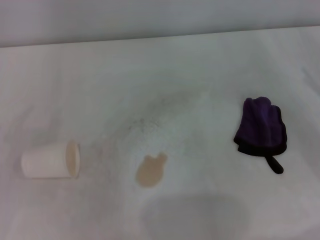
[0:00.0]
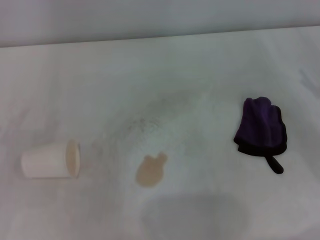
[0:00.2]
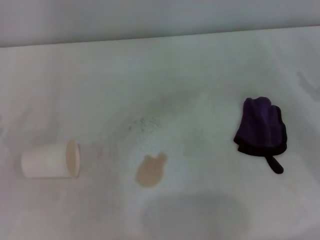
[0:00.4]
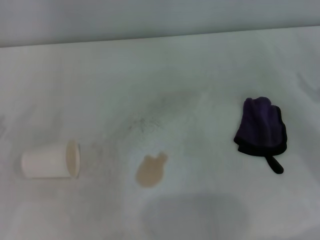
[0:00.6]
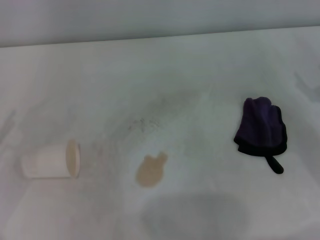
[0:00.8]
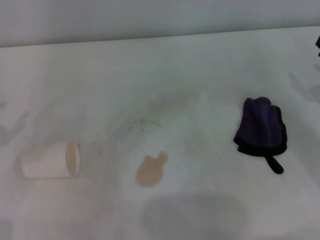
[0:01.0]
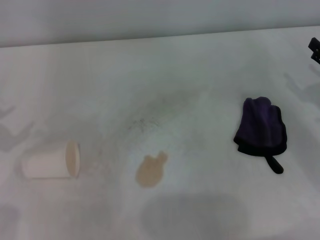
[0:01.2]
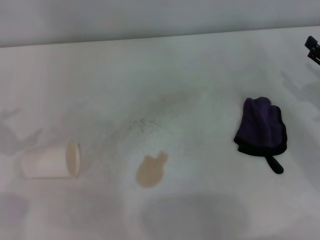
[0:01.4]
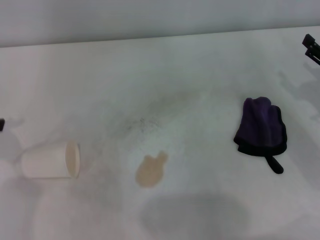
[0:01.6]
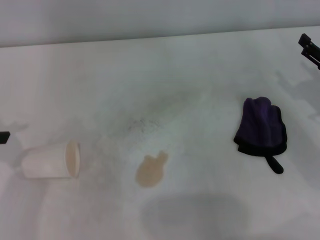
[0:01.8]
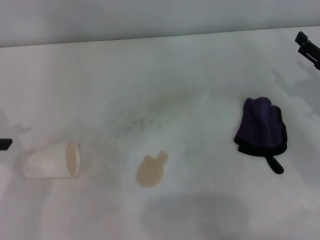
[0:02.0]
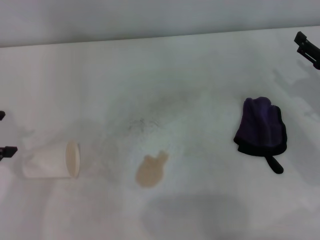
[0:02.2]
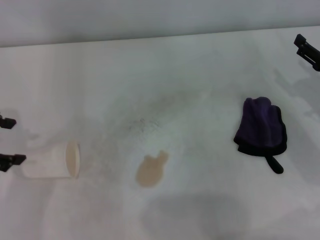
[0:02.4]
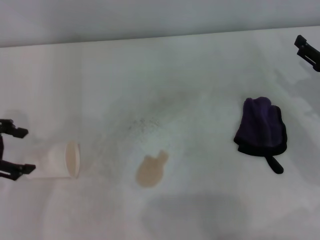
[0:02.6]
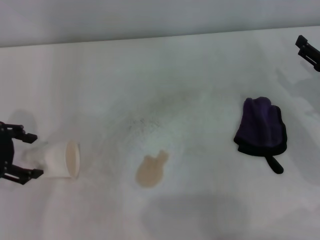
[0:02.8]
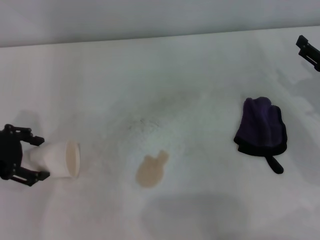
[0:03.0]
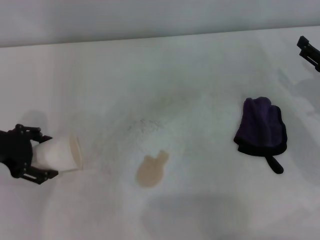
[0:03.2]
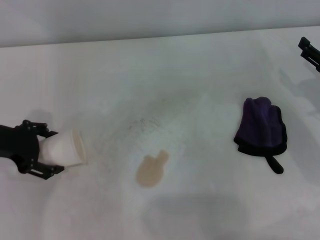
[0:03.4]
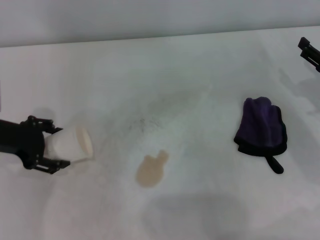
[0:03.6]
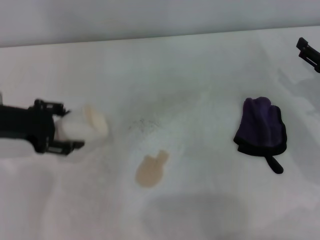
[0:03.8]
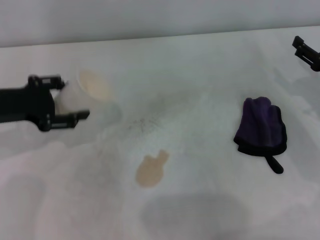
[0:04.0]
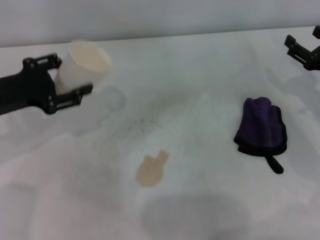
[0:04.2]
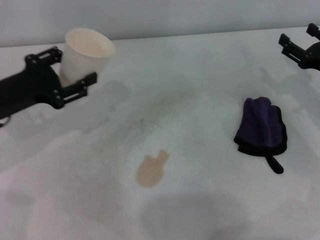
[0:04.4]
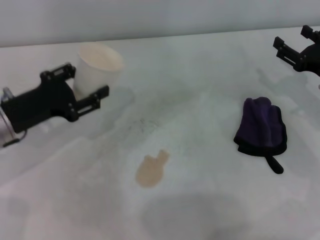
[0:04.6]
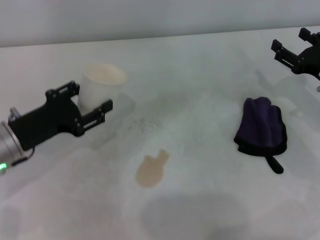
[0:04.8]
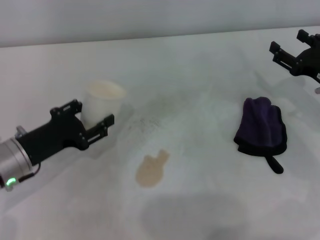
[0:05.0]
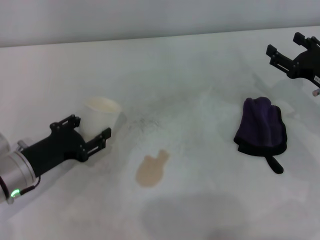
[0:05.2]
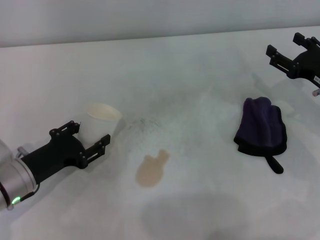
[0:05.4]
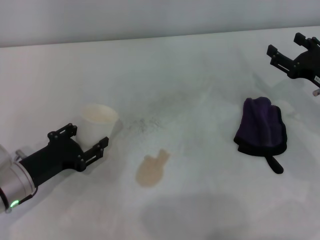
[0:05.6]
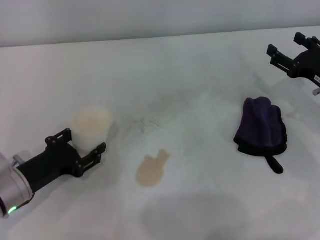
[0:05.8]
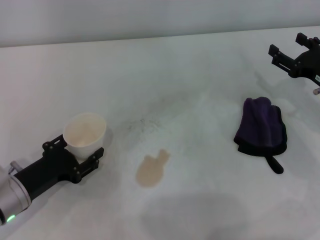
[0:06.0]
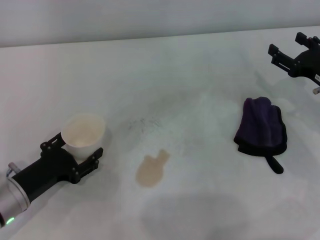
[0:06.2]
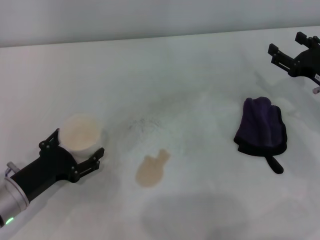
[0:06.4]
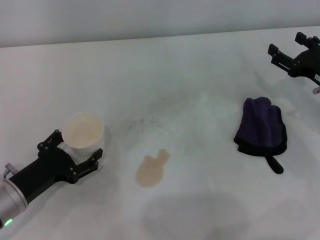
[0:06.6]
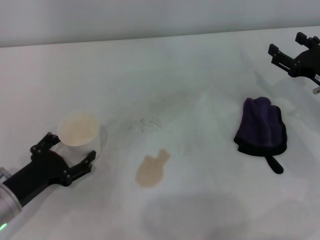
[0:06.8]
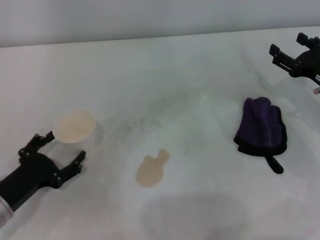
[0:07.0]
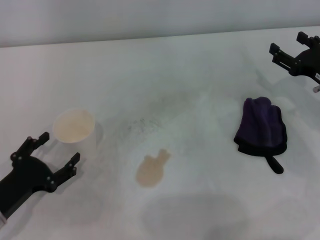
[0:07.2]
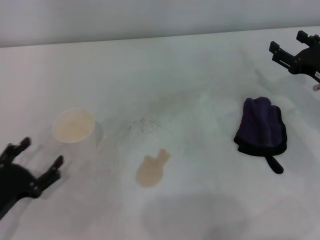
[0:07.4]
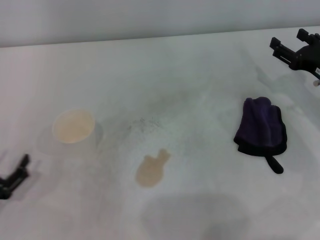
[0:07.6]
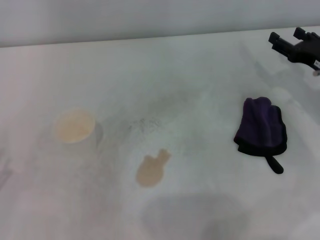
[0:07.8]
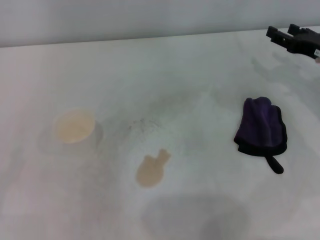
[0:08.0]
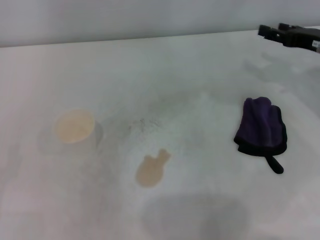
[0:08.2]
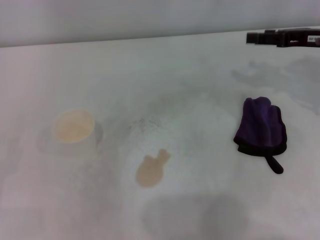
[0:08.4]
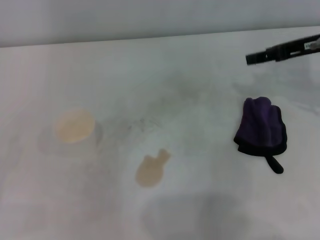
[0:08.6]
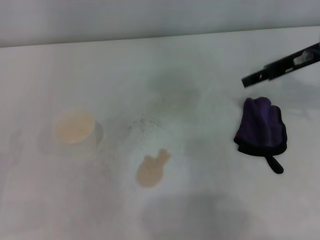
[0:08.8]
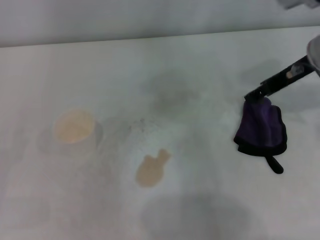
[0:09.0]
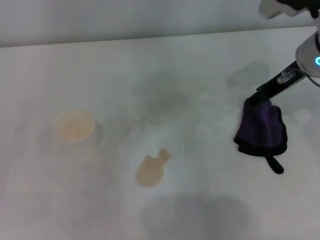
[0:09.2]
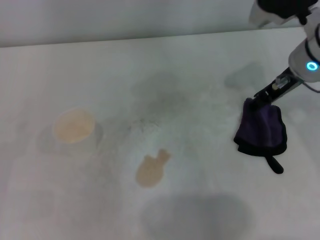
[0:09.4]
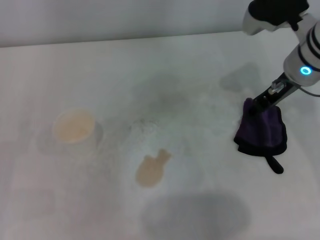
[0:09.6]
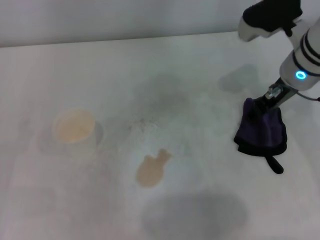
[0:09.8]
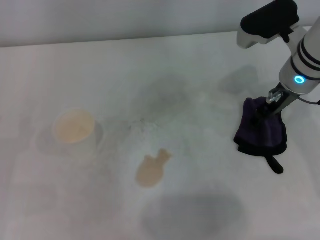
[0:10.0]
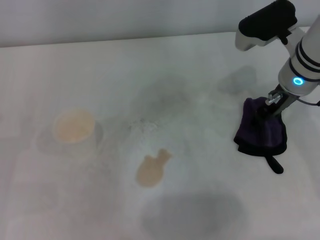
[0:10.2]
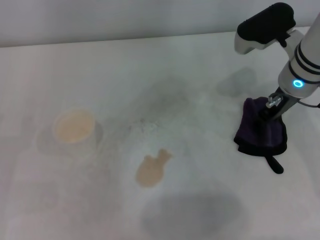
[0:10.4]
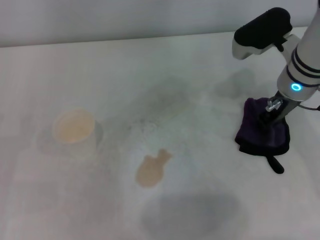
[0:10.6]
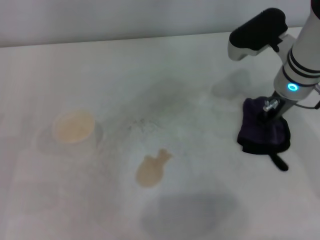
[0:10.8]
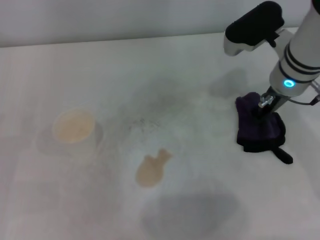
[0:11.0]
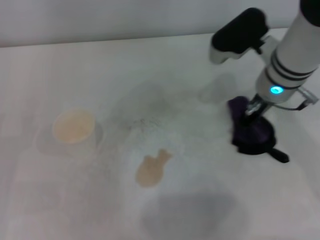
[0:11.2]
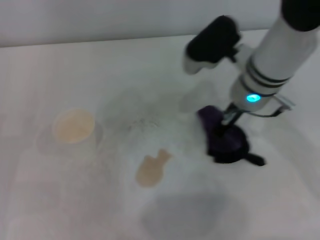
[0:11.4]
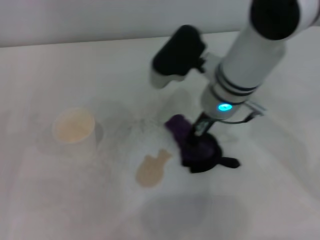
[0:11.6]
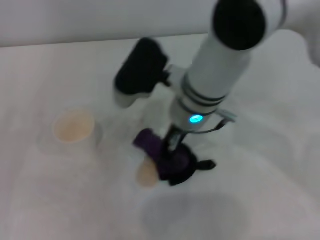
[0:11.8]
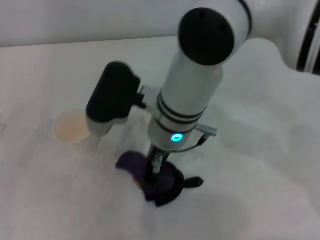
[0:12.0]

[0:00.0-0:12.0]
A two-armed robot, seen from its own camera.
Step, 0:00.0 to 0:03.2: Grasp the paper cup with the left gripper.
Step, 0:03.4 to 0:06.8: Stand the paper cup upright with the left gripper.
Step, 0:07.0 to 0:10.6: Grasp the rag with the right gripper.
0:01.6 to 0:03.0: The left gripper moves downward and to the right, approximately 10 cm.
0:03.0 to 0:04.4: The left gripper closes.
0:04.4 to 0:06.0: The left gripper is displaced downward and backward by some 15 cm.
0:06.0 to 0:07.6: The left gripper shifts roughly 10 cm backward and to the left, and opens up.
0:07.6 to 0:09.0: The right gripper travels upward and to the left by some 15 cm. The left gripper goes about 5 cm to the left.
0:09.0 to 0:10.4: The right gripper moves about 5 cm.
0:10.4 to 0:12.0: The right gripper shifts roughly 20 cm to the left, and closes up.

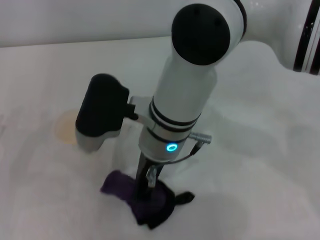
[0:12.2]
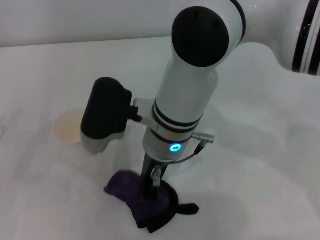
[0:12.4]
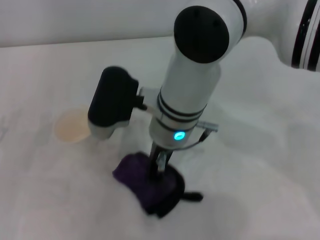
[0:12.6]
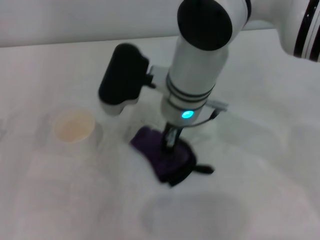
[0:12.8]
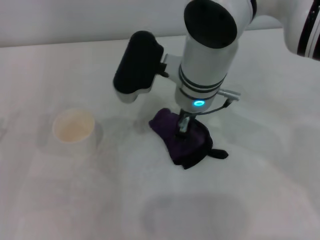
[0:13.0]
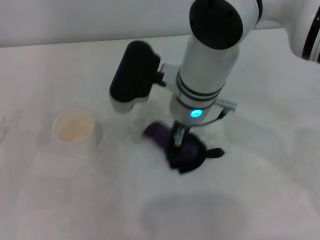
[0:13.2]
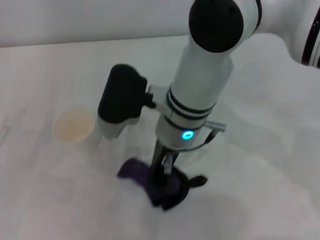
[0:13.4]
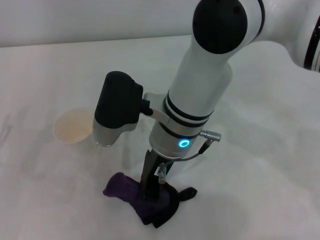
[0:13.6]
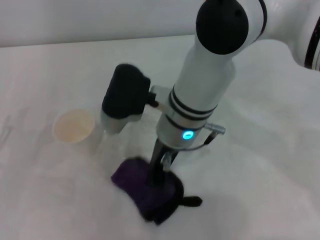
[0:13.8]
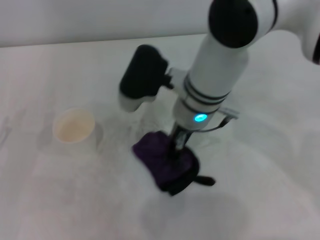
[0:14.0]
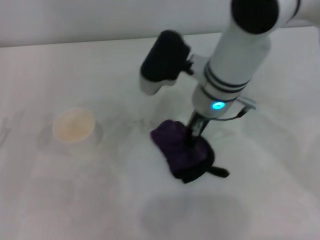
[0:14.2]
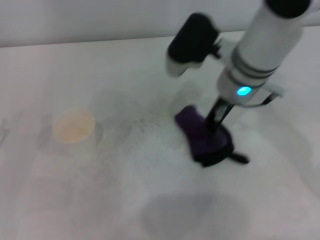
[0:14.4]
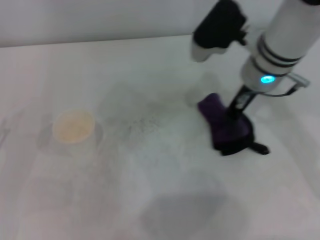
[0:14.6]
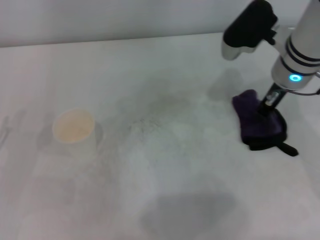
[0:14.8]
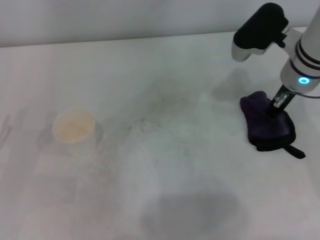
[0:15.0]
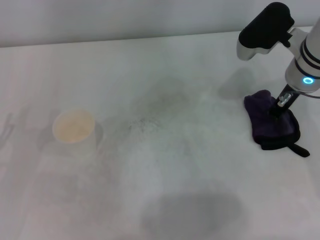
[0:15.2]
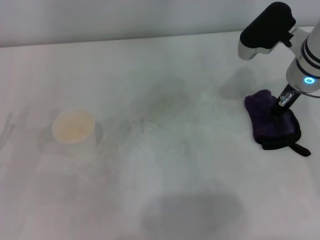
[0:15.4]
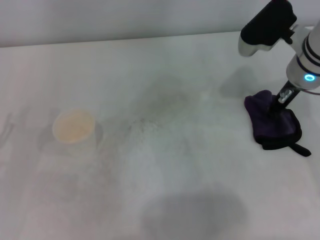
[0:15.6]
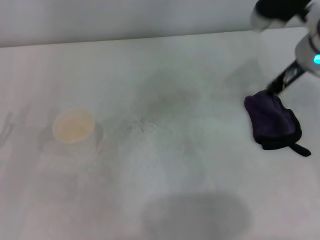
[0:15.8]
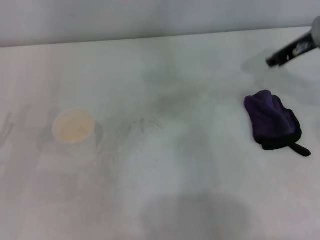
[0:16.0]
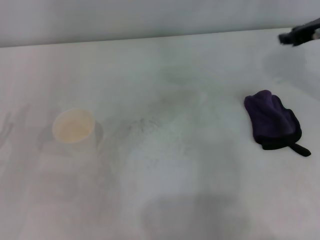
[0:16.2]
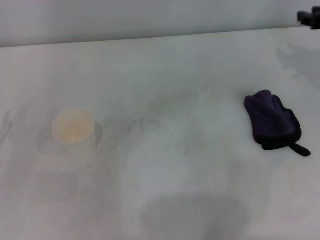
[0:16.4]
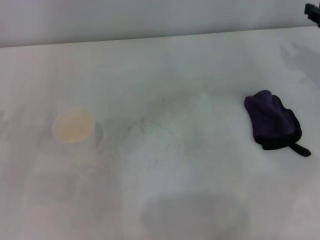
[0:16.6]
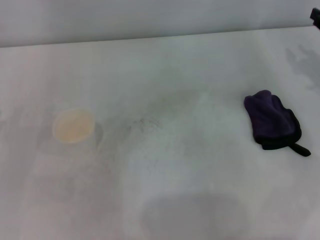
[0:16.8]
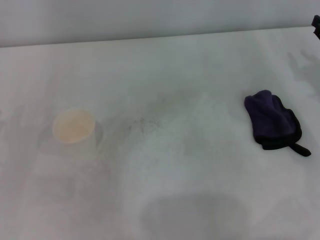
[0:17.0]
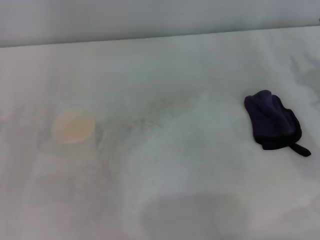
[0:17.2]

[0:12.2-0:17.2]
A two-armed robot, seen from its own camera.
Step, 0:12.2 to 0:14.6: Wipe the stains off the table with the right gripper.
Step, 0:14.8 to 0:15.4: Place the rag on the table with the right gripper.
0:13.8 to 0:15.6: The right gripper is displaced to the right by about 20 cm.
0:15.6 to 0:17.2: The right gripper goes about 15 cm to the right, backward and downward.

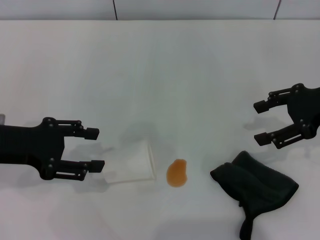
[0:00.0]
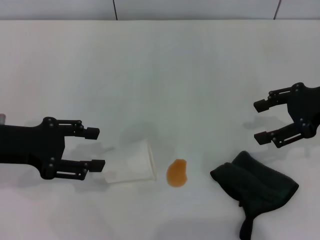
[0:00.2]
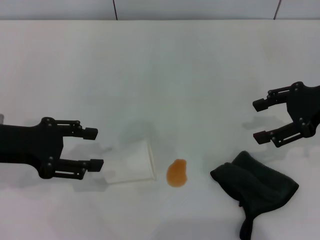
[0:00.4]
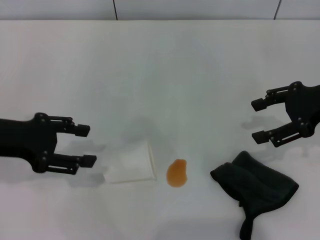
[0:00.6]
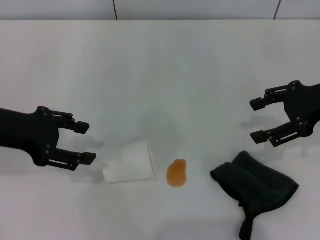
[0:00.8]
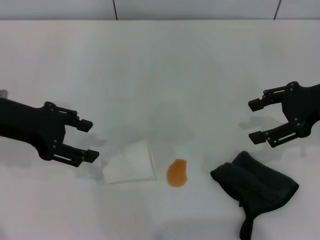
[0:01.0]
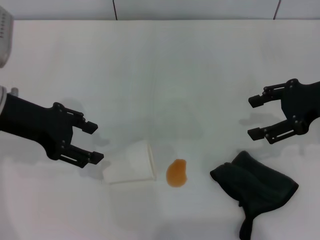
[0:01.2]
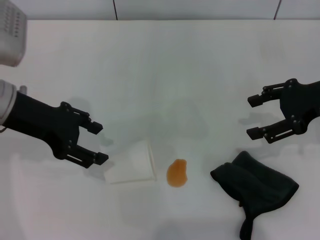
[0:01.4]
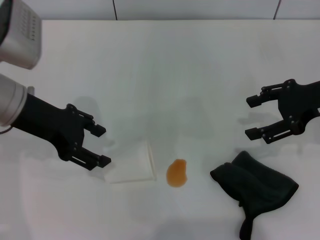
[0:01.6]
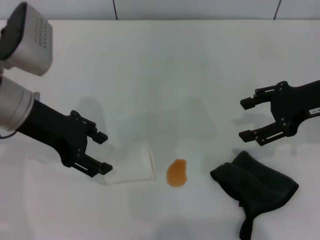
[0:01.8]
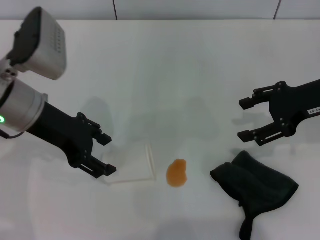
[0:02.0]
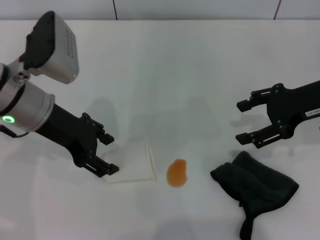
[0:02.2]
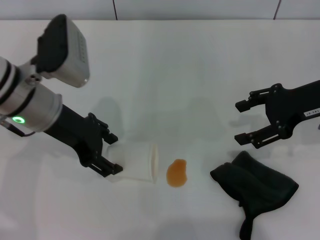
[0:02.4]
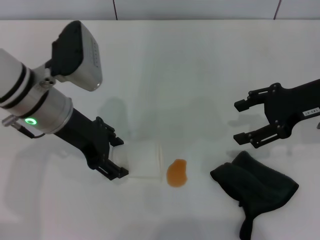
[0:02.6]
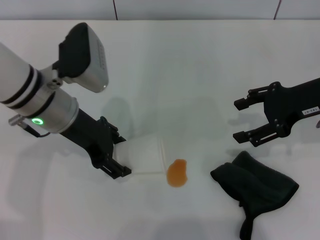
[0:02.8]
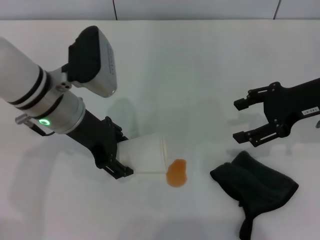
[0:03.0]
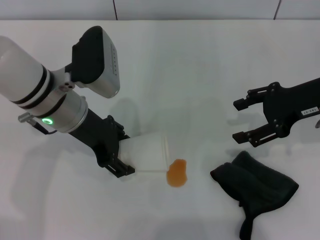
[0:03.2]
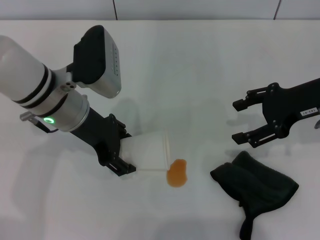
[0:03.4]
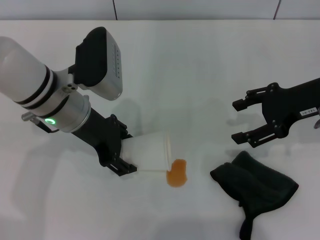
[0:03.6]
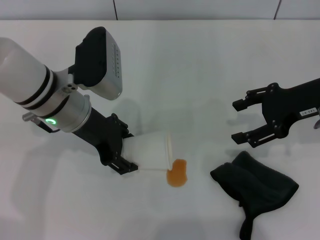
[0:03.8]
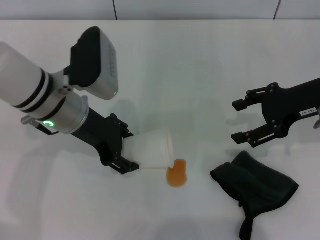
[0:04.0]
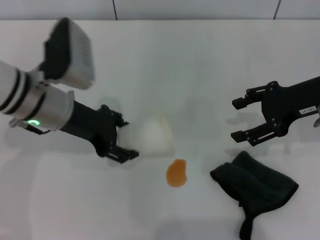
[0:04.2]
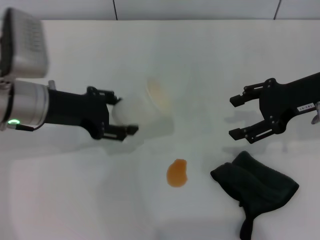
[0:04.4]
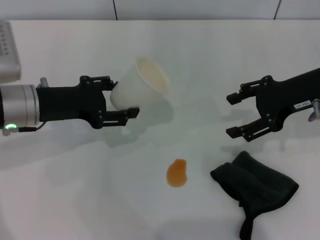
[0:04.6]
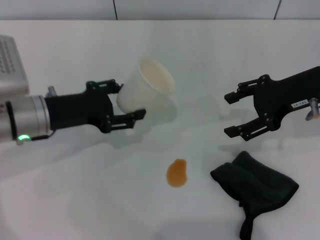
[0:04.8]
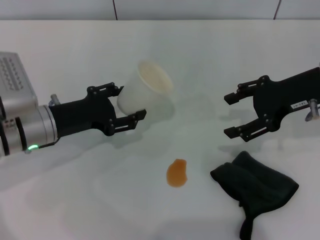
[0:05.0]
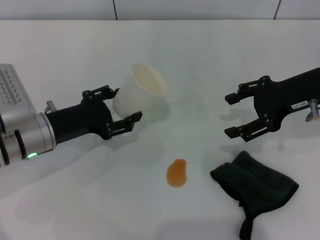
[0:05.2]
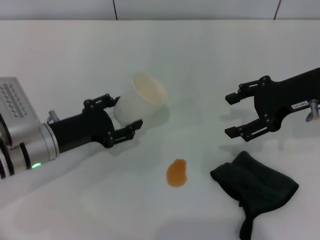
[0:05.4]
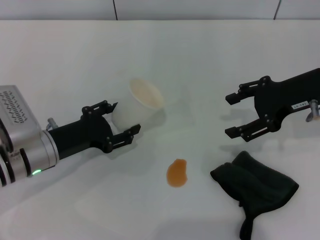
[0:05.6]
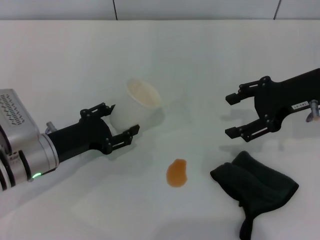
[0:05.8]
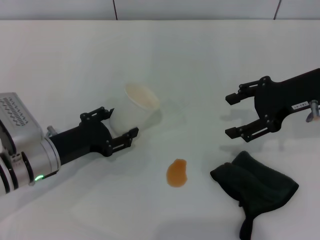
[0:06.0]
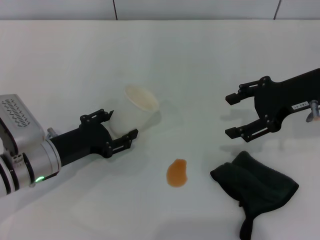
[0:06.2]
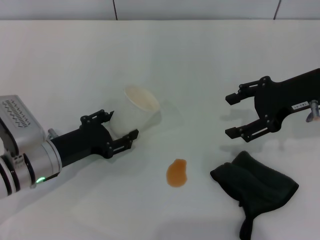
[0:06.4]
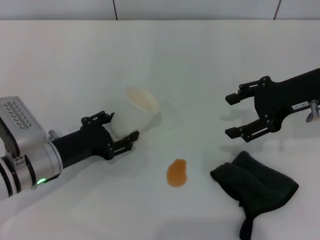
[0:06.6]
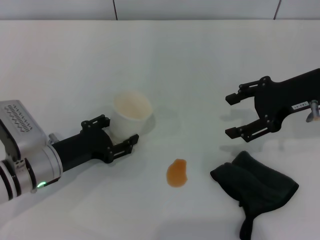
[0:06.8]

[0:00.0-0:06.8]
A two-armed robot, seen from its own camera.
Step, 0:00.0 to 0:02.8: Grasp the paper cup with the left gripper.
0:00.0 to 0:01.4: The left gripper shifts some 5 cm to the right.
0:01.4 to 0:02.8: The left gripper heads to the right, covering roughly 5 cm.
0:02.8 to 0:04.0: The left gripper closes.
0:04.0 to 0:05.4: The left gripper shifts roughly 10 cm downward and to the left.
0:05.4 to 0:06.8: The grippers stay close to where they were, moving slightly.
